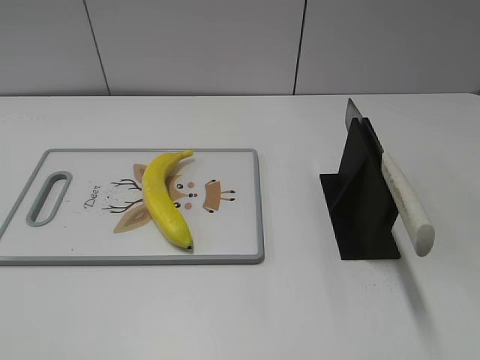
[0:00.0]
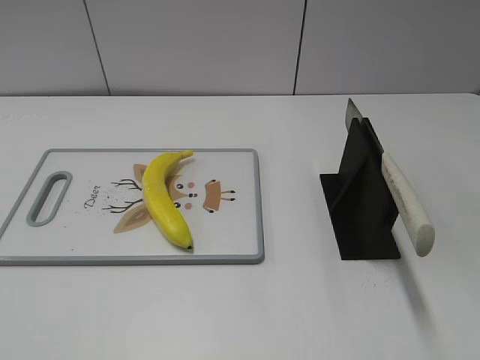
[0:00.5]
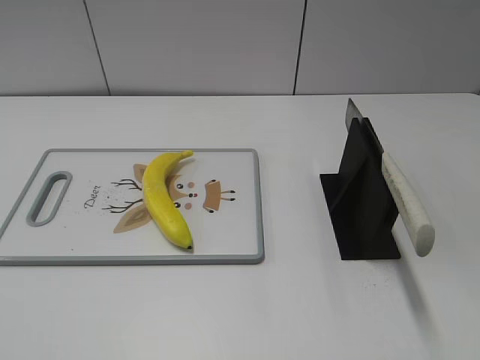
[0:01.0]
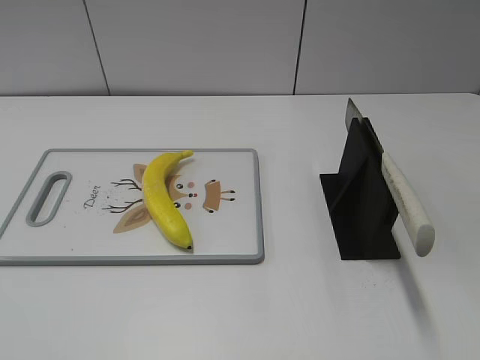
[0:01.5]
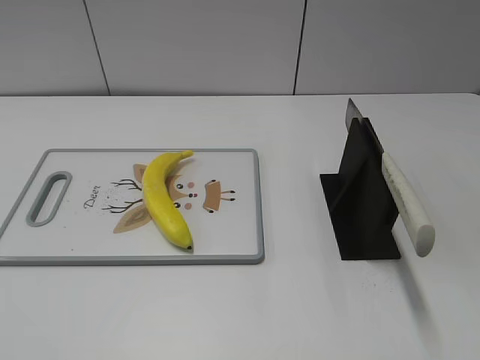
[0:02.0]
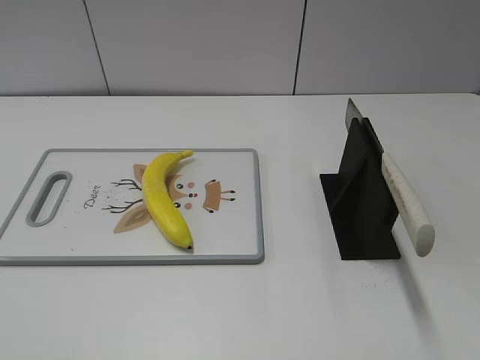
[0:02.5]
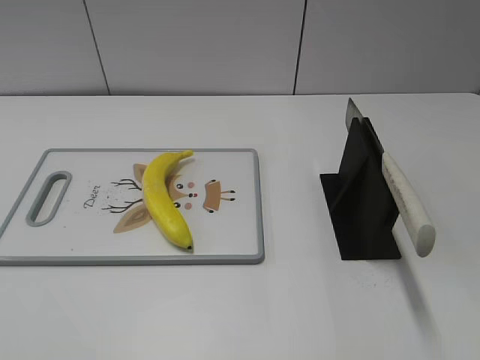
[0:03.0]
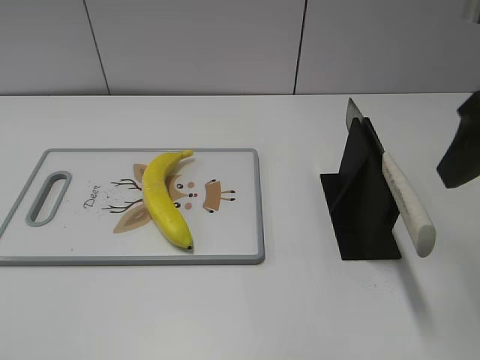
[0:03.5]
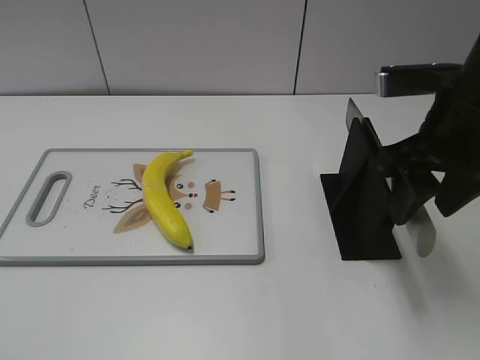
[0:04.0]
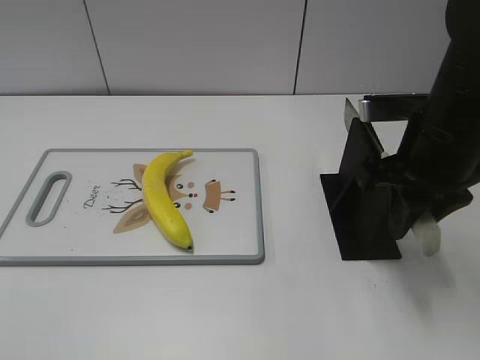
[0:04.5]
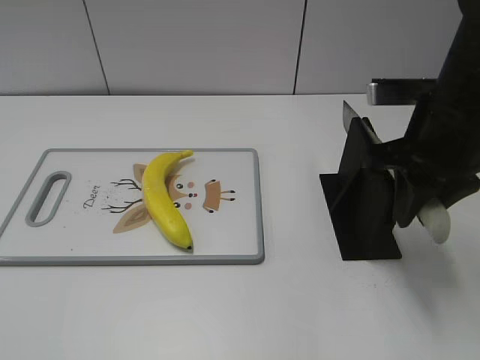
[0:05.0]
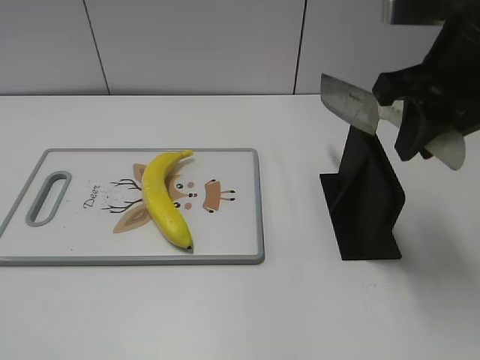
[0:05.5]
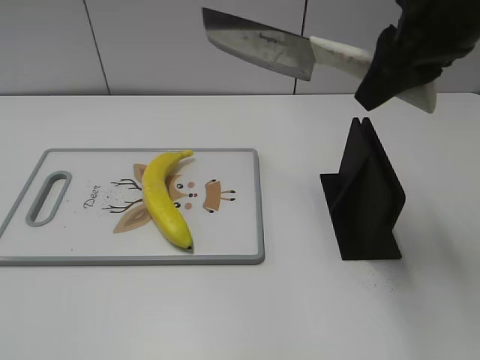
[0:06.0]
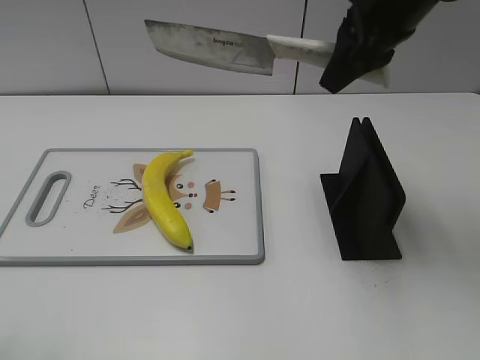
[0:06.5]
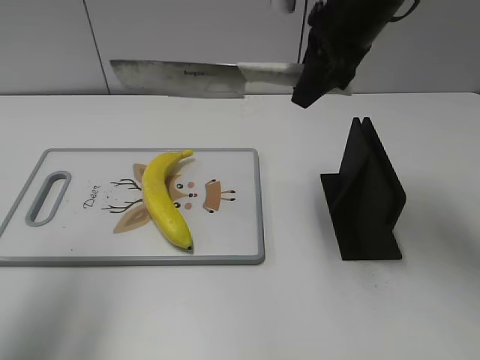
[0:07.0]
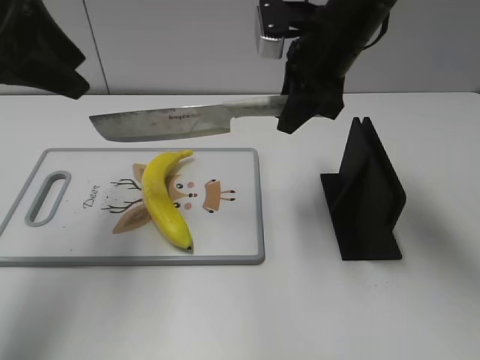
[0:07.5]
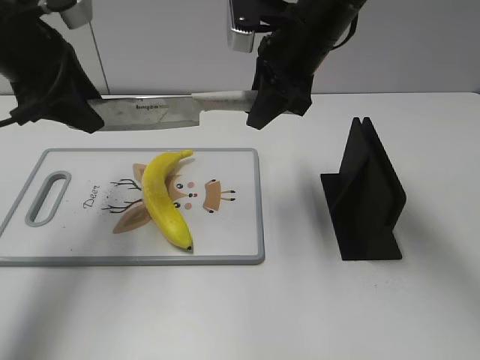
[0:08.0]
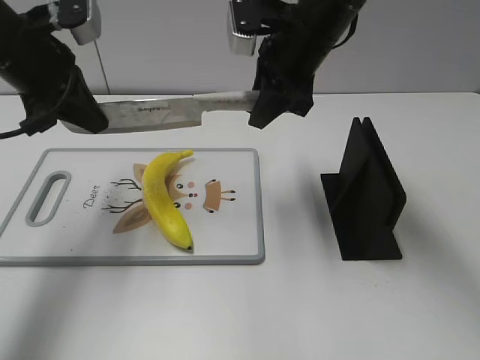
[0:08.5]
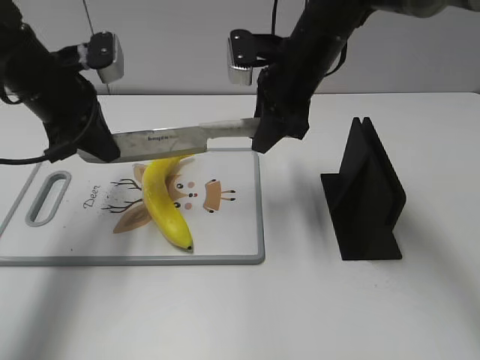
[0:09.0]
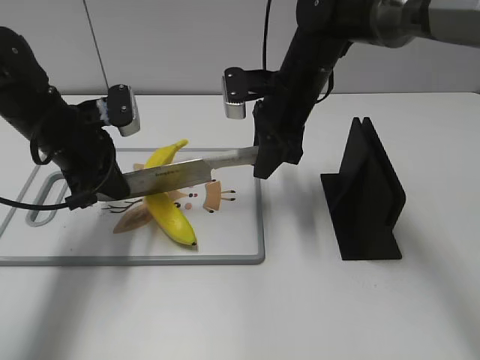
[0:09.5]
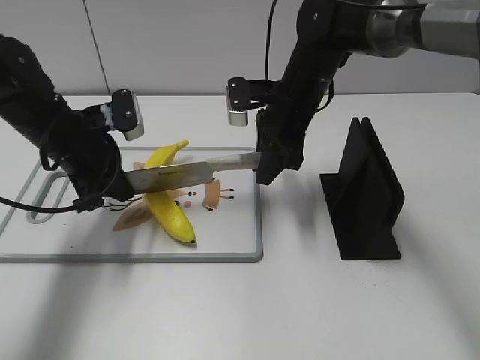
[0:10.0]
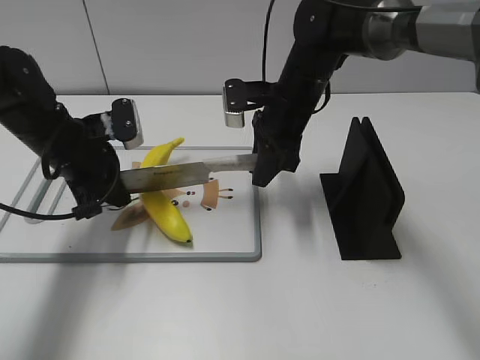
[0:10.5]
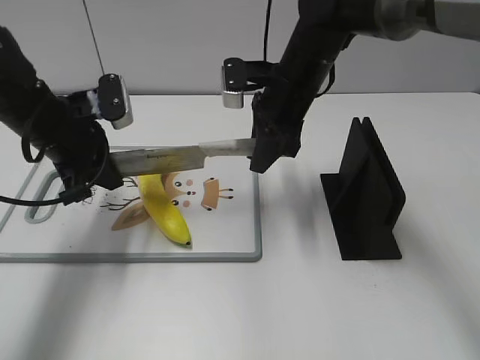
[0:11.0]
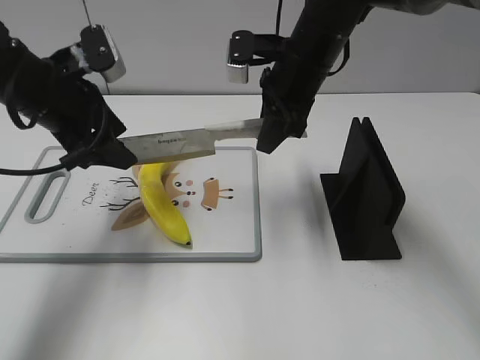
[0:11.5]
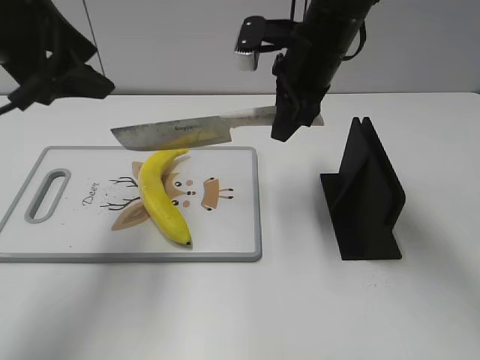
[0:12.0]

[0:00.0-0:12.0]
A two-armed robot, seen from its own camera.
Task of the whole recording: cut plastic banana.
Step, 0:00.0 to 0:05.5: Grab the knife handle with your right hand.
Step, 0:06.0 to 0:10.0: Lift the knife with your right hand.
0:02.0 to 0:04.0: The right gripper is displaced forward by about 25 cm.
0:04.0 to 0:06.0: The right gripper travels upward by some 10 cm, and closes.
0:06.0 to 0:08.0: The right gripper travels forward, downward and to the left by approximately 15 cm. Meanwhile the left gripper is displaced forward by roughly 35 cm.
0:08.0 to 0:10.0: Both grippers move downward, some 10 cm. The left gripper closes.
0:10.0 to 0:12.0: The right gripper moves upward, approximately 10 cm; the left gripper travels upward by roughly 20 cm, and opens.

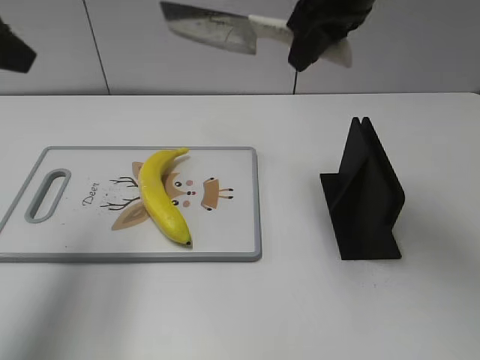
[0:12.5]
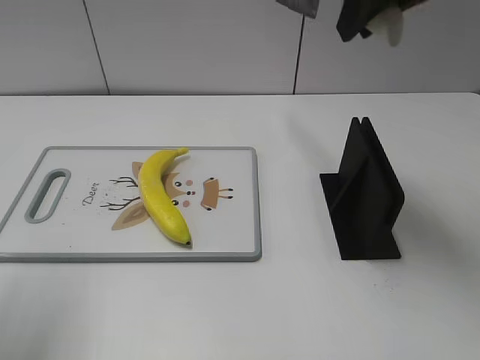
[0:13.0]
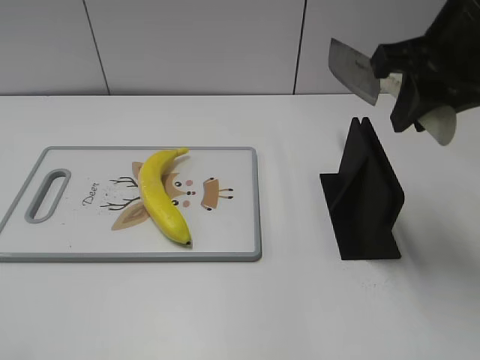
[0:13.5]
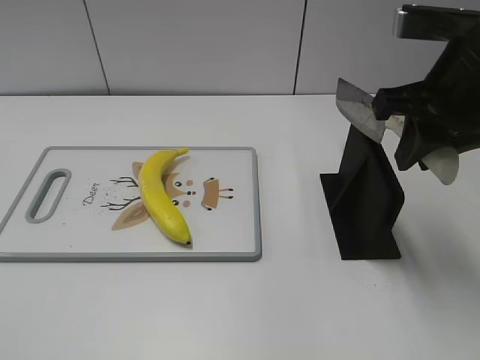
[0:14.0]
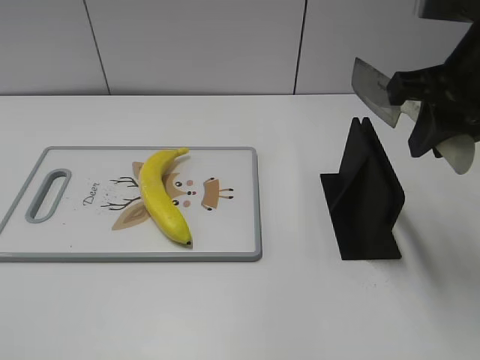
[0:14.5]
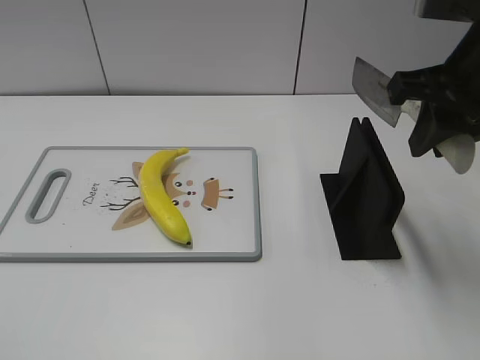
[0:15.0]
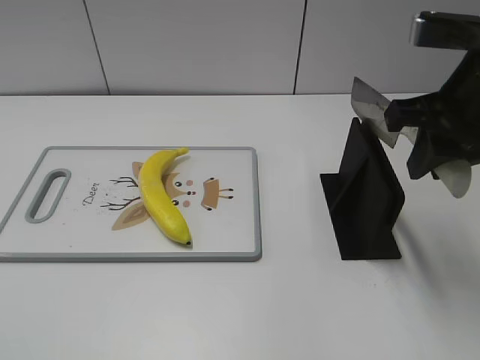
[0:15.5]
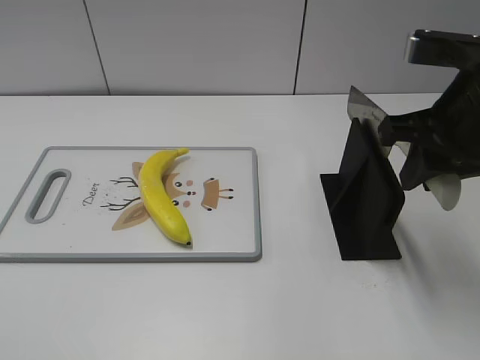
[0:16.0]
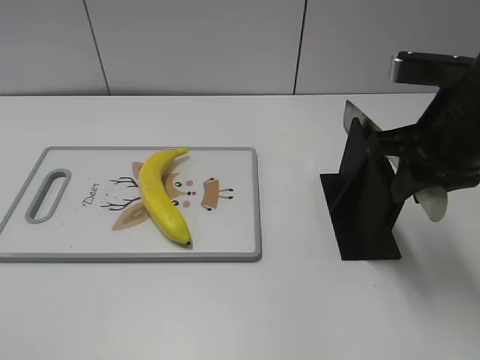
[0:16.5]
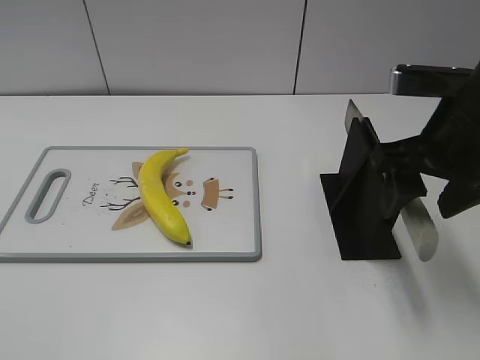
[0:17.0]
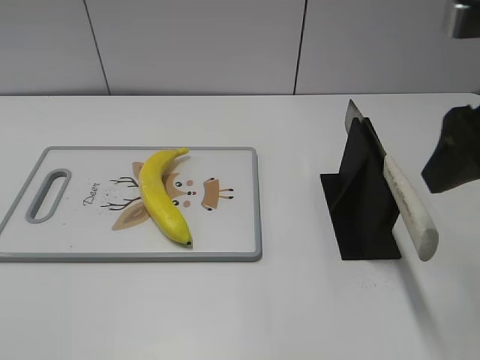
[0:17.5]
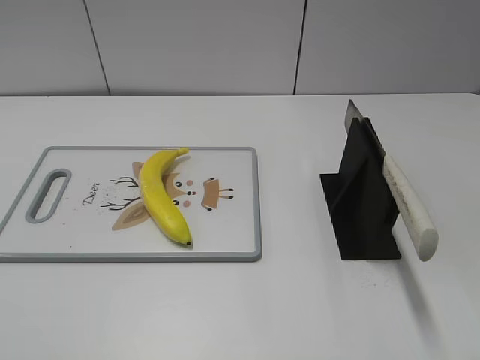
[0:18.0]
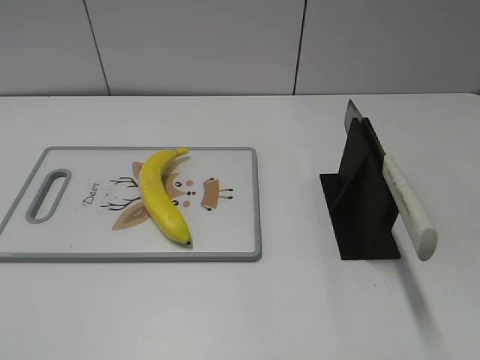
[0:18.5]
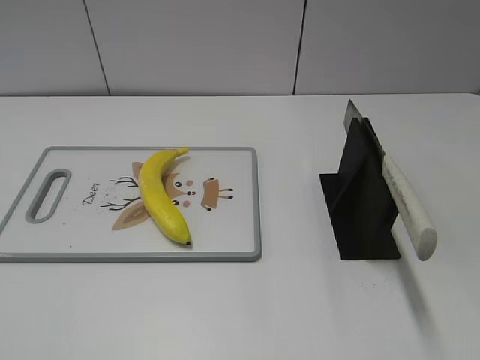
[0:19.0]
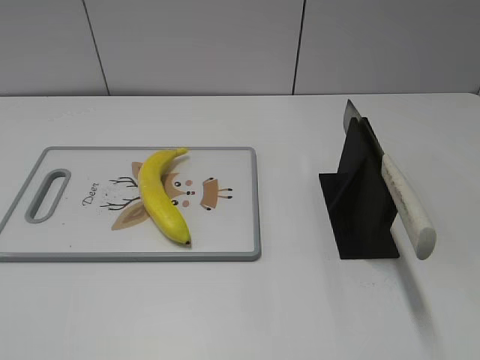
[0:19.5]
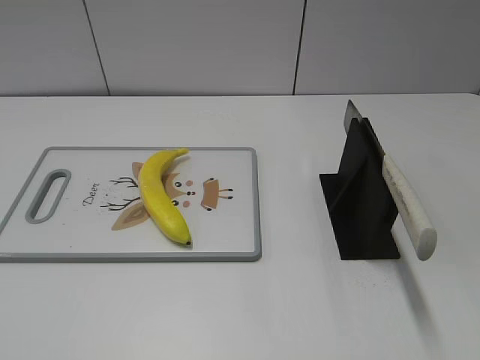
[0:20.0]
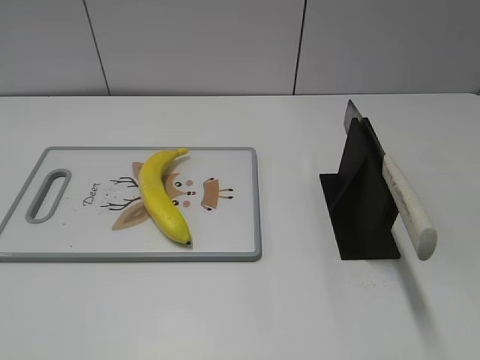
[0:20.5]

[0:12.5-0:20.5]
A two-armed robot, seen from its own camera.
Task of the whole recording: cut plastic banana.
Step, 0:13.5 to 0:14.0: Lift the knife with your right hand.
Step, 0:14.5 to 0:20.5: Place the knife on the storage rack with your right hand.
0:12.5 to 0:14.5: The right gripper is displaced backward and to the right by approximately 15 cm. The left gripper is displaced backward by roughly 25 cm.
0:14.5 to 0:16.5: The right gripper heads downward, covering some 5 cm.
0:16.5 to 0:18.5: The right gripper moves backward, roughly 20 cm, and opens.

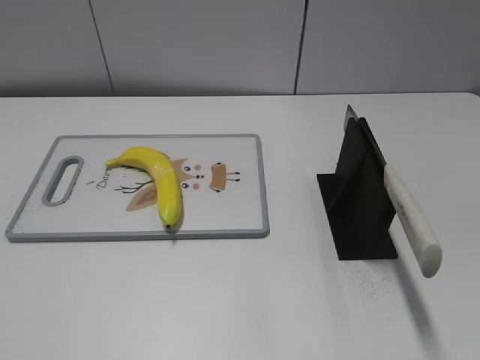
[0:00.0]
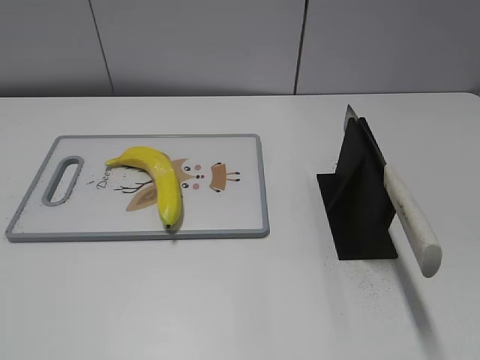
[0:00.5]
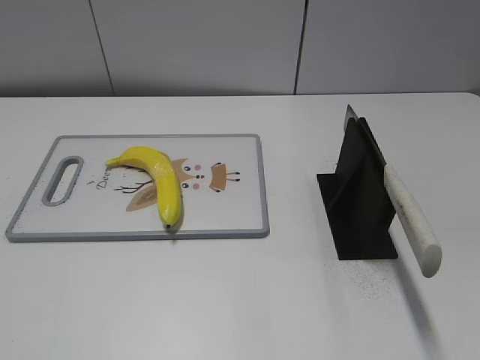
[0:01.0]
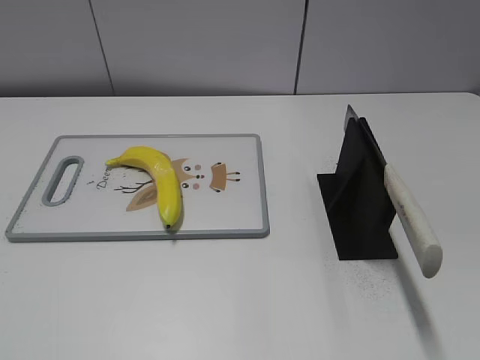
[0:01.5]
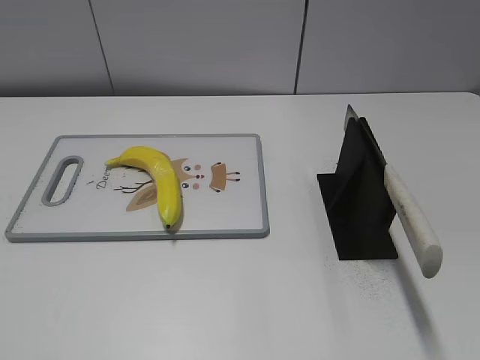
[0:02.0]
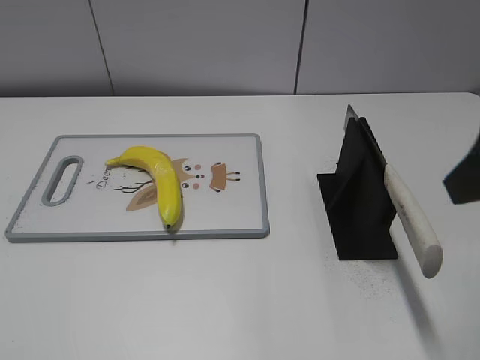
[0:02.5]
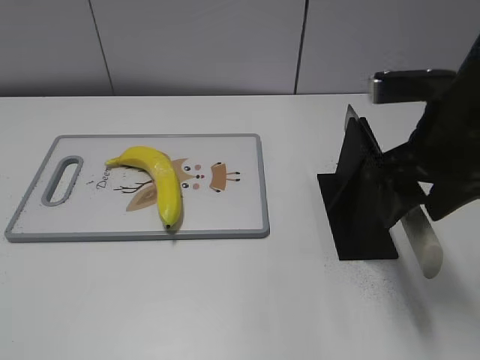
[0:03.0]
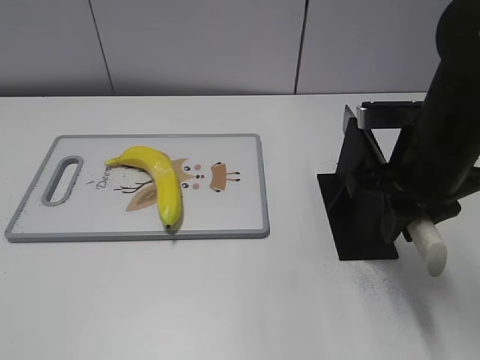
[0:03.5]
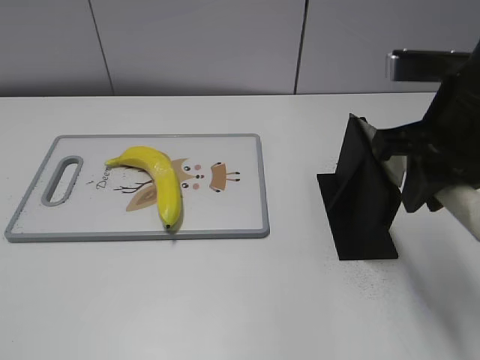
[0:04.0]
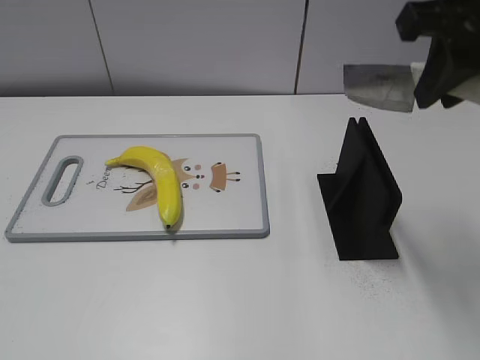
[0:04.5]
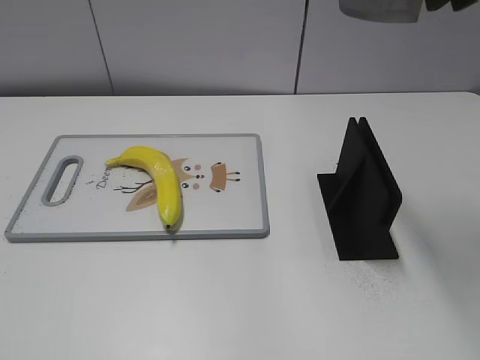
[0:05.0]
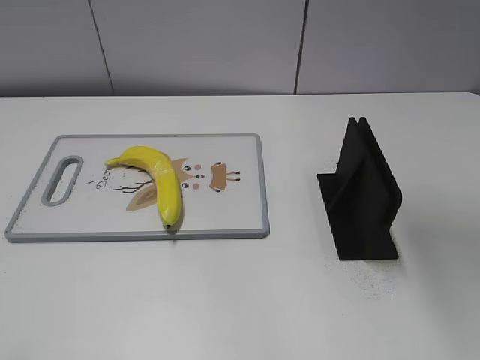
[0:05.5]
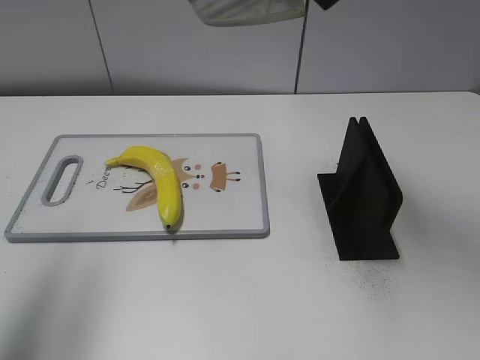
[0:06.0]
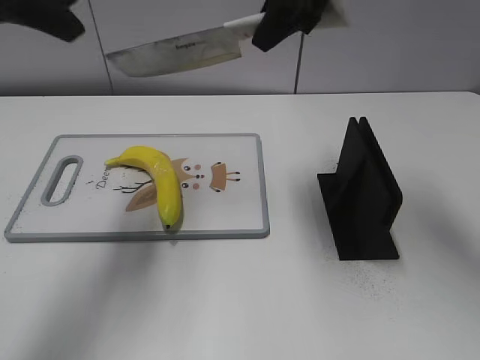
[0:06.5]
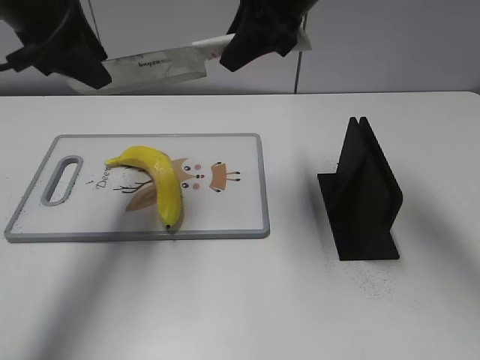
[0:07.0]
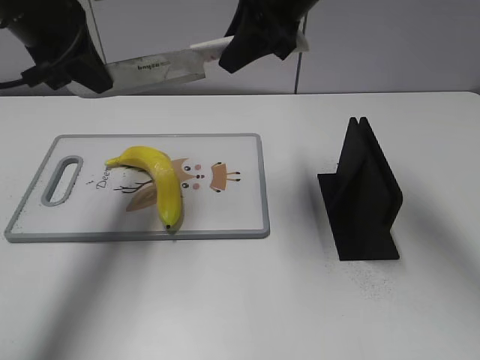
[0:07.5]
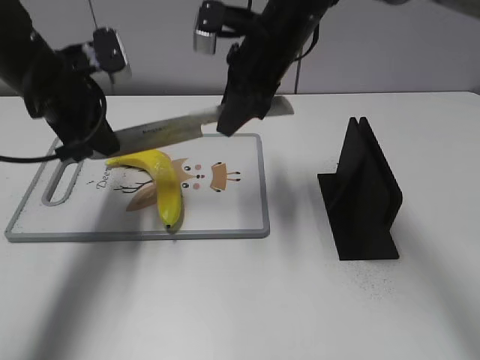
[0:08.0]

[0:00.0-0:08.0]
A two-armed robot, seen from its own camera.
Task of the whole recording: cut plastic banana.
Step, 0:00.0 to 0:04.0: Grab the knife handle with your right hand.
0:02.0 to 0:04.0: The right gripper moves forward and to the left, about 25 cm, and closes.
0:04.0 to 0:06.0: The right gripper shifts approximately 15 cm upward and forward. Meanwhile the left gripper moves forward and upward, roughly 20 cm.
0:06.0 to 0:08.0: The left gripper moves forward, downward and to the right, approximately 25 cm, and closes. Meanwhile the right gripper shifts roughly 20 cm downward, to the left and forward.
